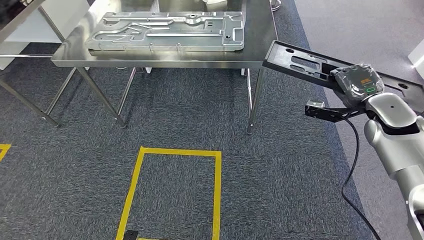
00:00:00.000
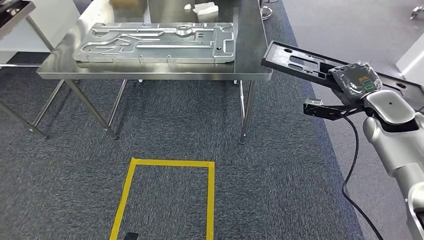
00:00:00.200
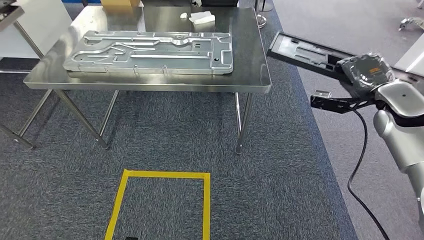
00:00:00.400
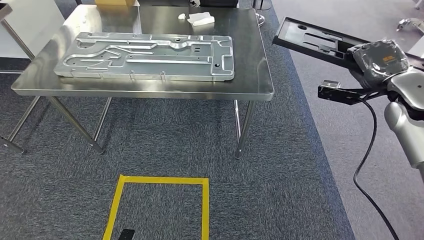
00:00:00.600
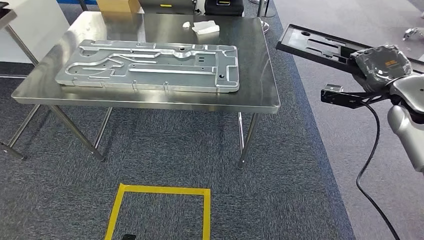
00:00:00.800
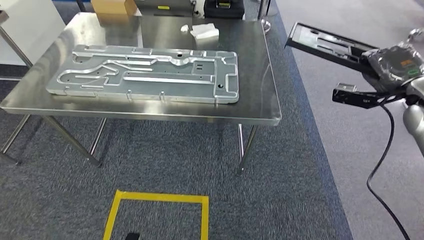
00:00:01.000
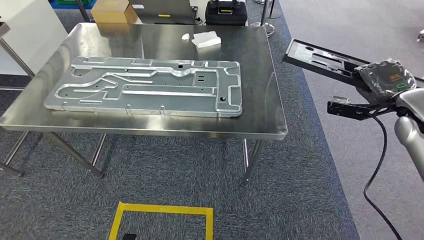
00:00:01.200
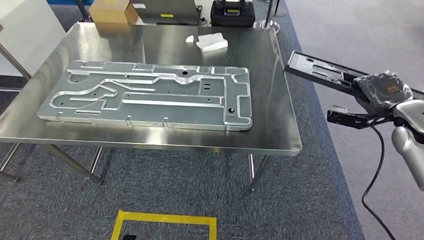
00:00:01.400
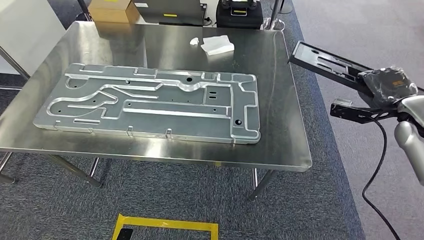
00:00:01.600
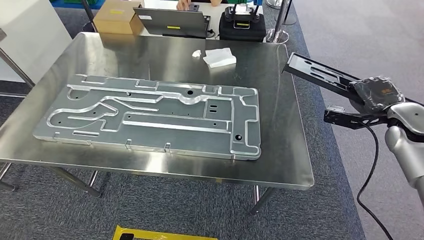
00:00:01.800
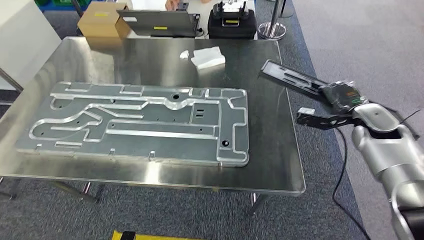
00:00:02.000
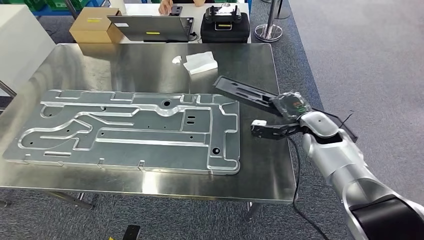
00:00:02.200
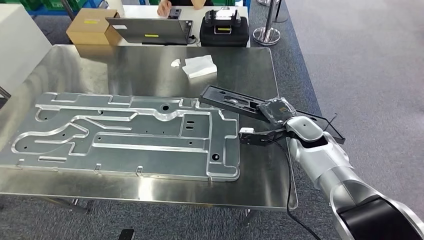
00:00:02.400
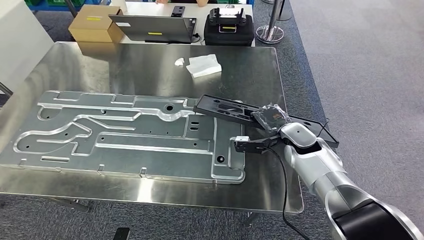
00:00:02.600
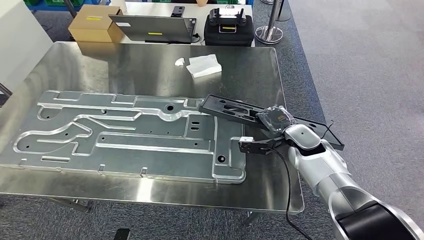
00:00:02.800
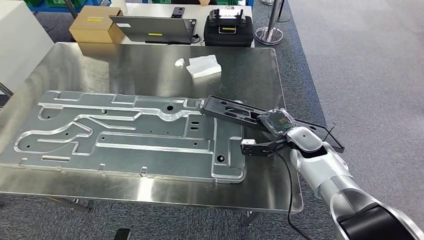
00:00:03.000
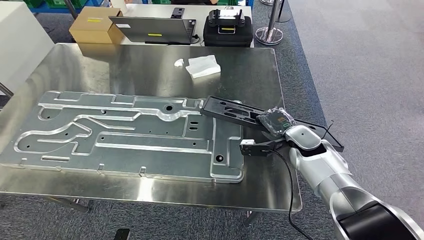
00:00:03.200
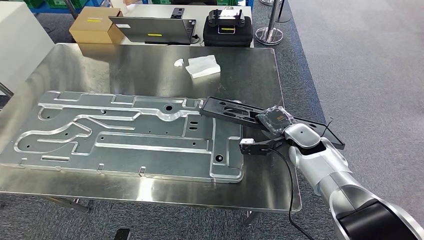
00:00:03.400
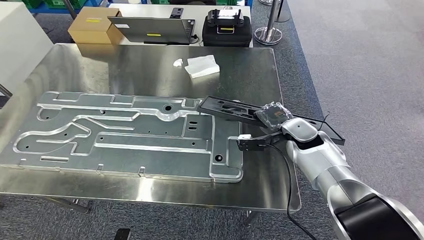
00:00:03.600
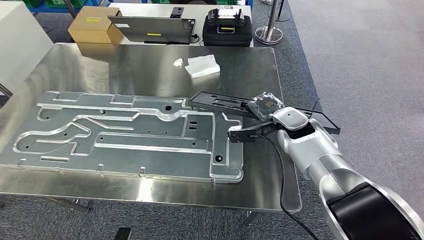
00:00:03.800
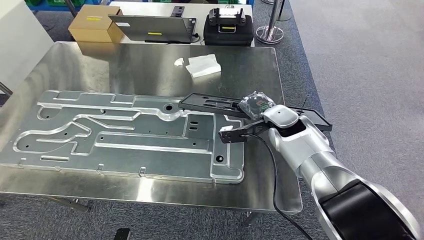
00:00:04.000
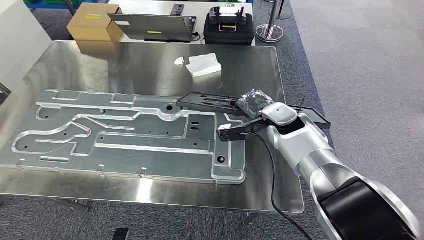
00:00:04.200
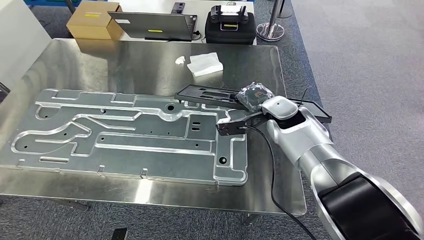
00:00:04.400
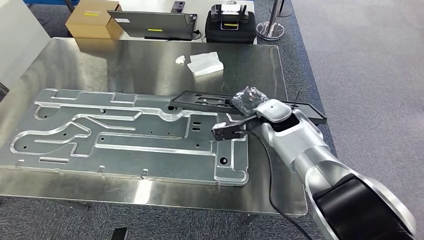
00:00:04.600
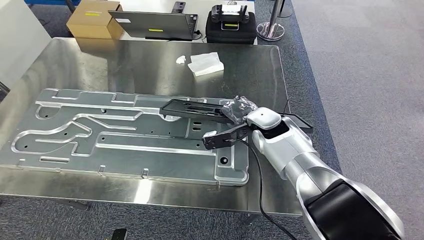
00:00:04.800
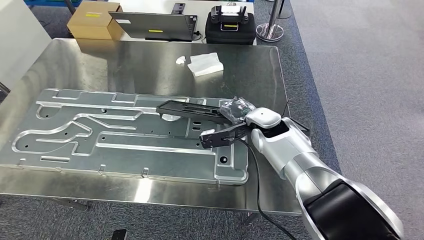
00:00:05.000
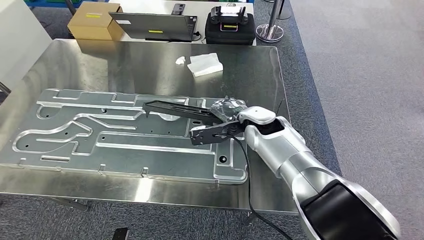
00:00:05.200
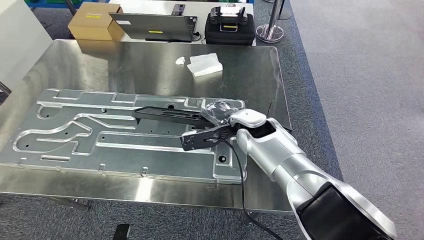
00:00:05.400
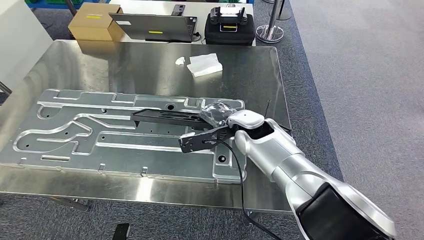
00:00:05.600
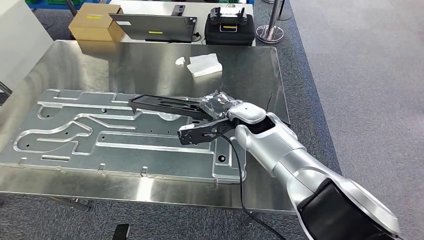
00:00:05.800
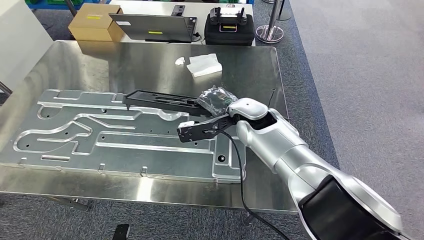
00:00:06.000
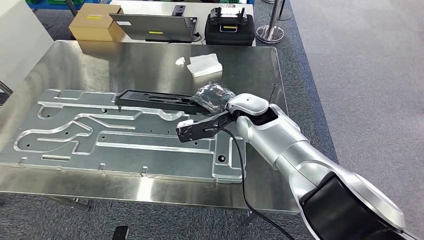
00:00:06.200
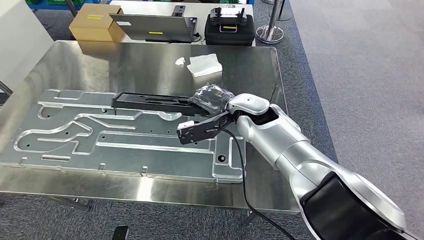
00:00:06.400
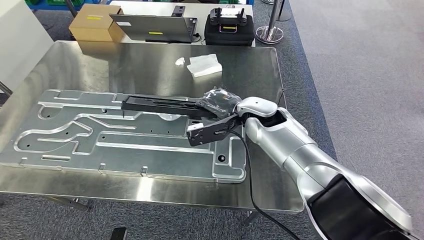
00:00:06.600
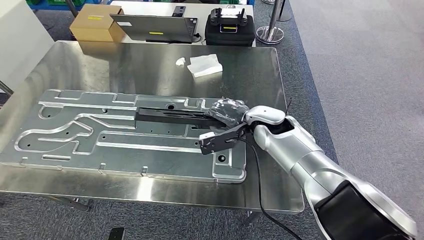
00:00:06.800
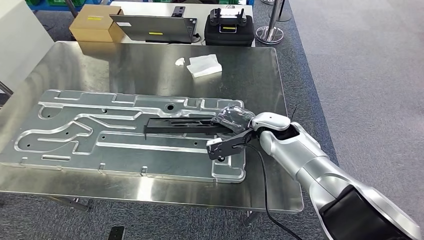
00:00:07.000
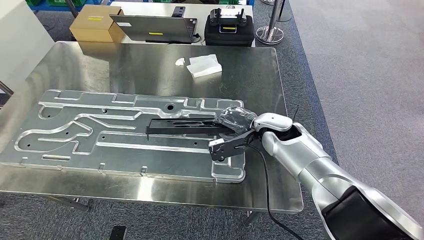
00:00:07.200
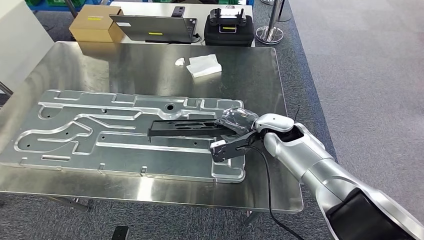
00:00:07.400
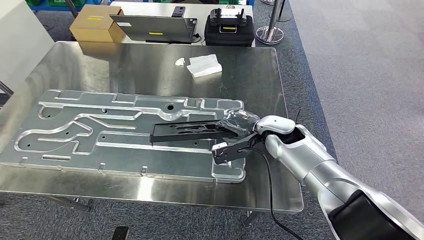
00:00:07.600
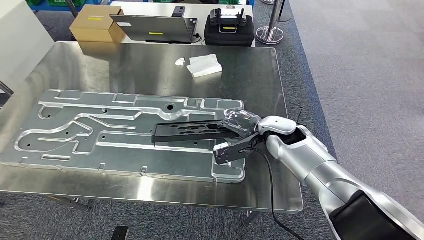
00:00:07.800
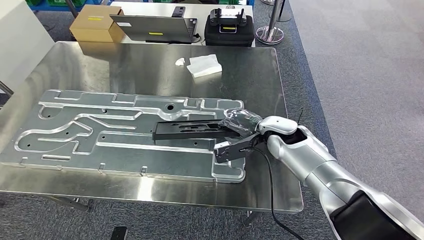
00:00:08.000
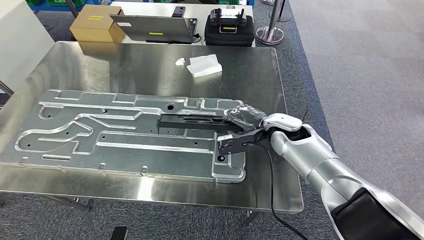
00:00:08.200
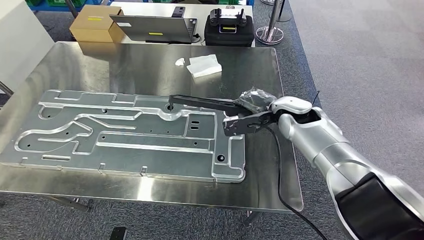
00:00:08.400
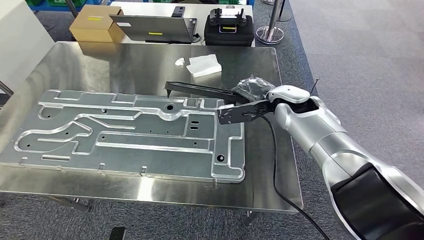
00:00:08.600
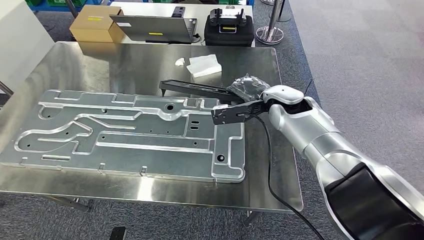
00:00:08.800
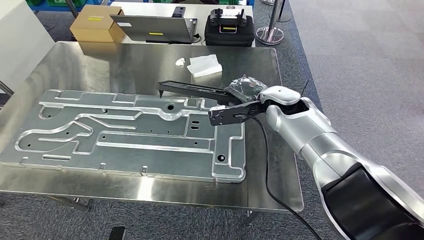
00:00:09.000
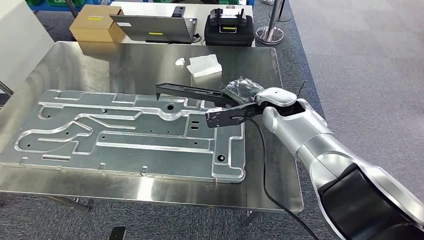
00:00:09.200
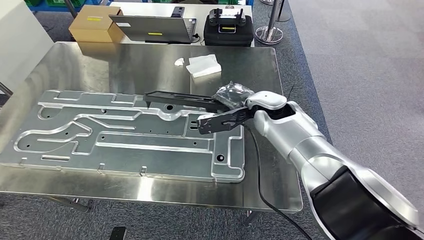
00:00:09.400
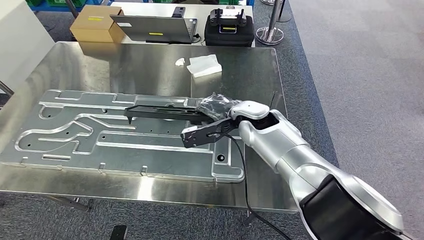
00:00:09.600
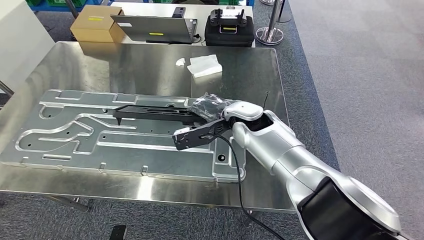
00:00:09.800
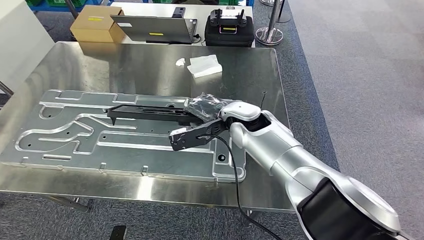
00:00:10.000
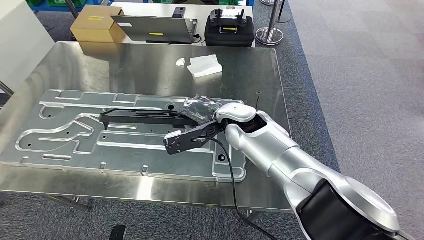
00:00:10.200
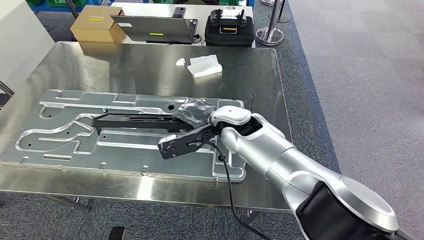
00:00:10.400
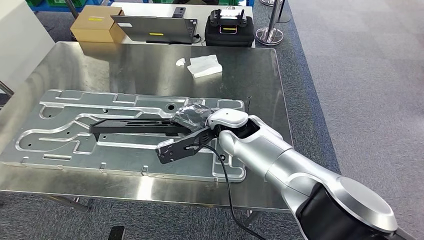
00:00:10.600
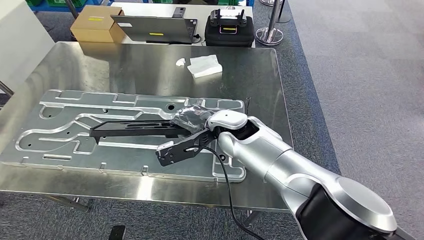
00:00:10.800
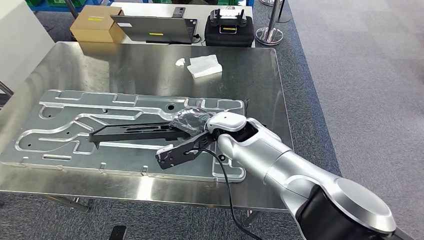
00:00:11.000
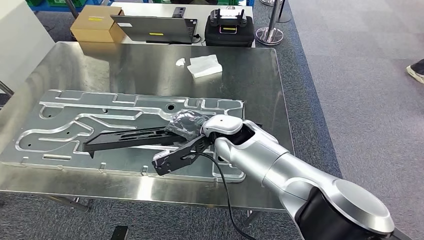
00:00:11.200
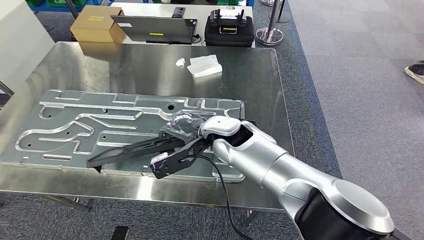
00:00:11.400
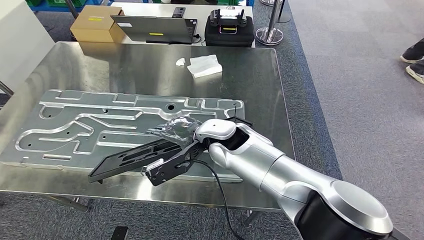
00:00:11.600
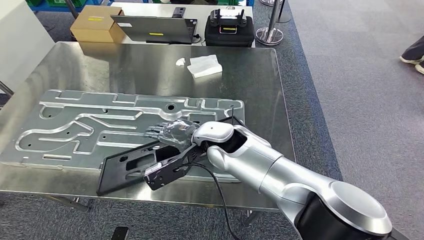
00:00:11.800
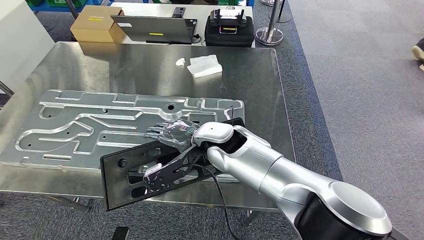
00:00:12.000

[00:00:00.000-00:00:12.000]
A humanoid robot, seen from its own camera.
00:00:06.000 to 00:00:07.600: The right hand moves to the right and downward, about 10 cm.
00:00:07.600 to 00:00:09.000: The right hand heads upward, covering some 5 cm.
00:00:10.400 to 00:00:12.000: The right hand moves some 5 cm.

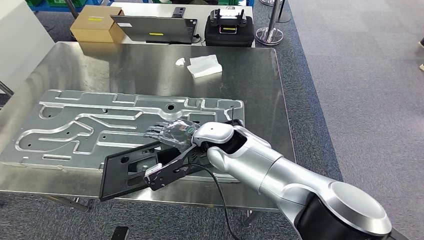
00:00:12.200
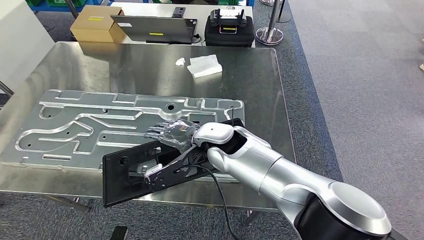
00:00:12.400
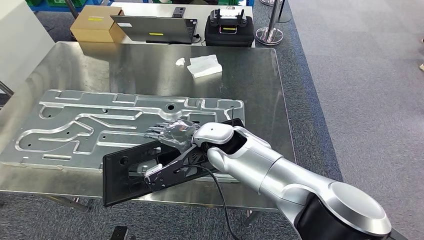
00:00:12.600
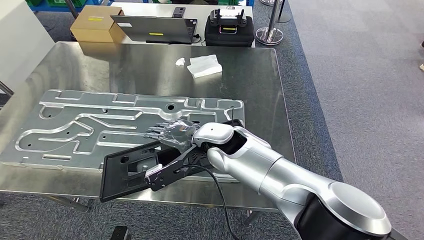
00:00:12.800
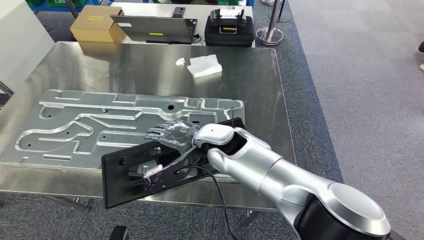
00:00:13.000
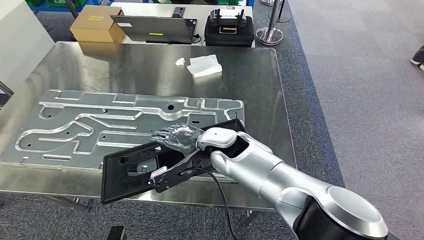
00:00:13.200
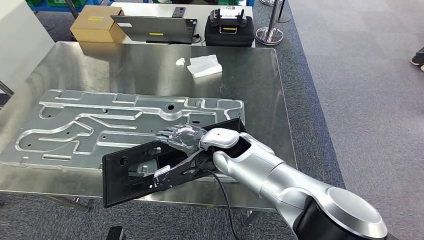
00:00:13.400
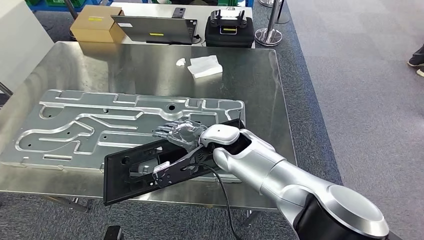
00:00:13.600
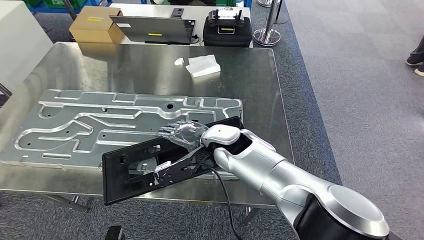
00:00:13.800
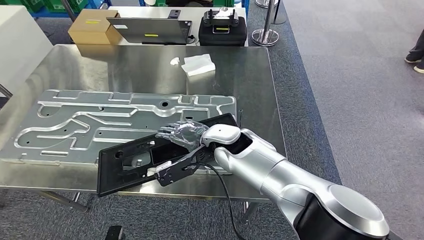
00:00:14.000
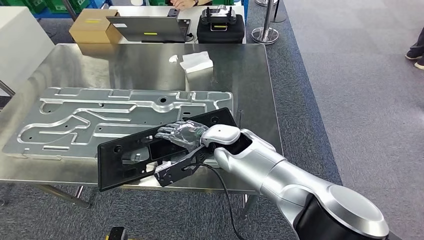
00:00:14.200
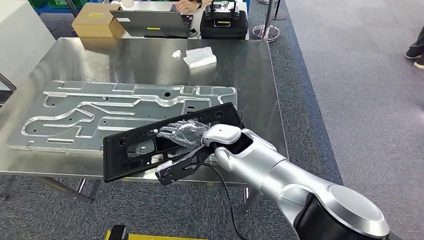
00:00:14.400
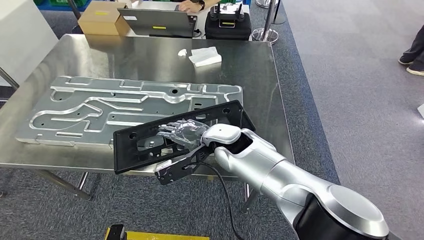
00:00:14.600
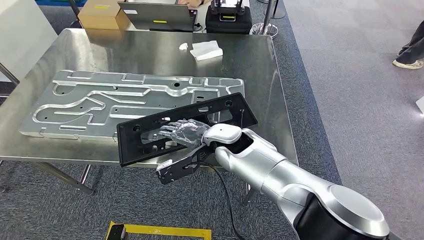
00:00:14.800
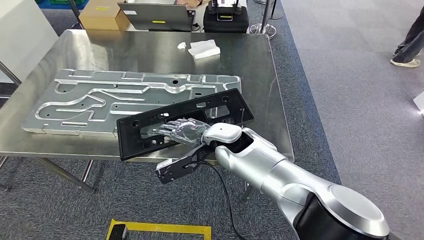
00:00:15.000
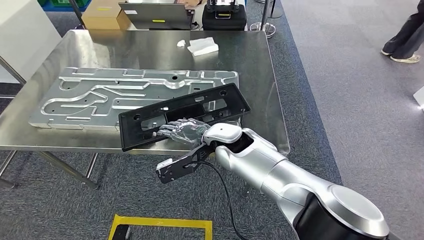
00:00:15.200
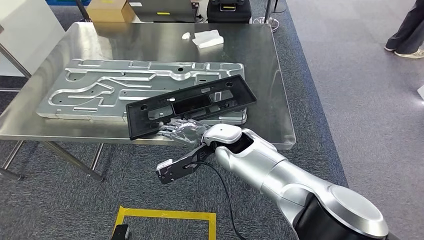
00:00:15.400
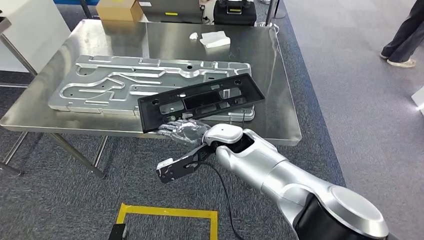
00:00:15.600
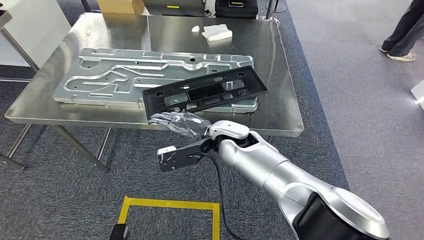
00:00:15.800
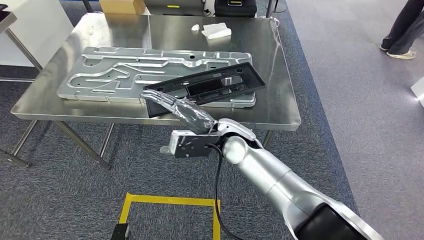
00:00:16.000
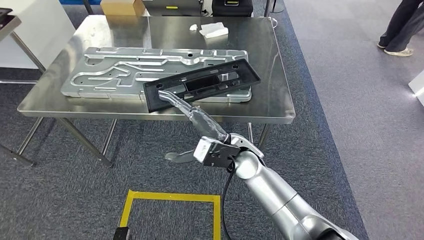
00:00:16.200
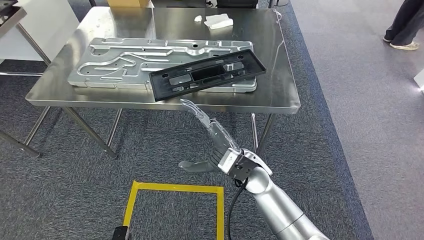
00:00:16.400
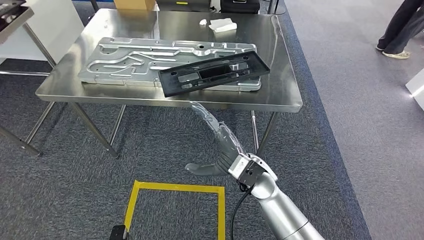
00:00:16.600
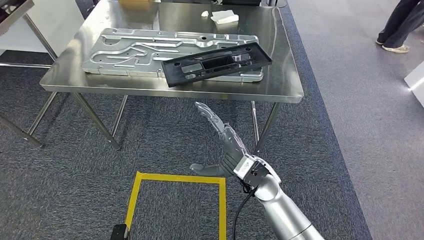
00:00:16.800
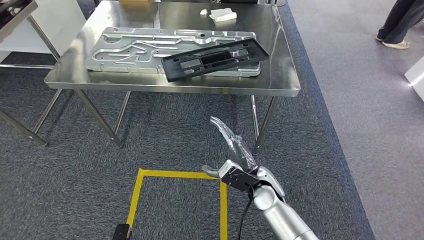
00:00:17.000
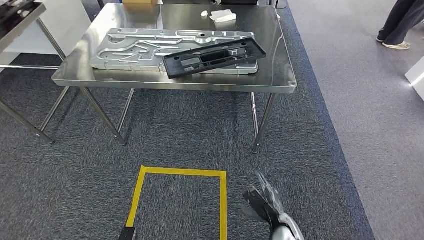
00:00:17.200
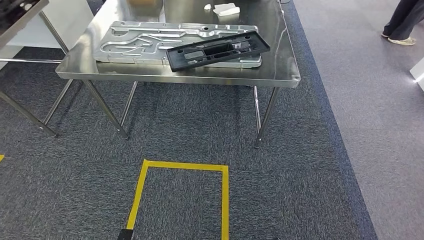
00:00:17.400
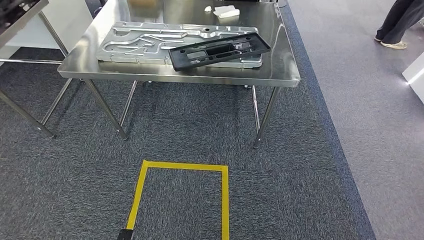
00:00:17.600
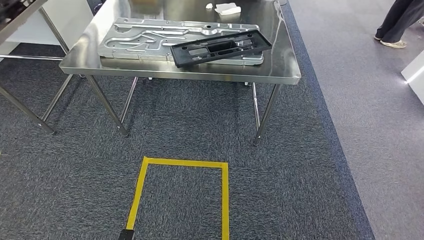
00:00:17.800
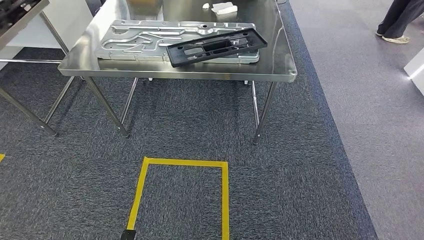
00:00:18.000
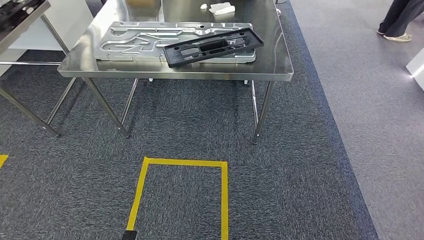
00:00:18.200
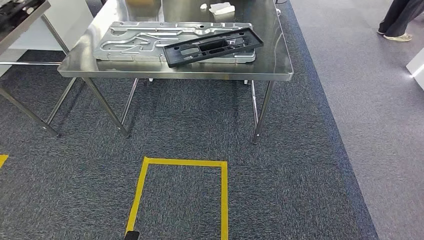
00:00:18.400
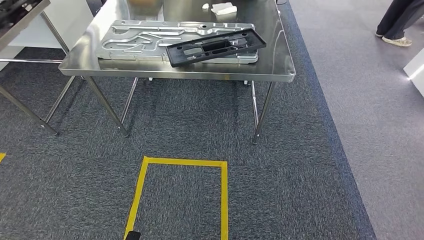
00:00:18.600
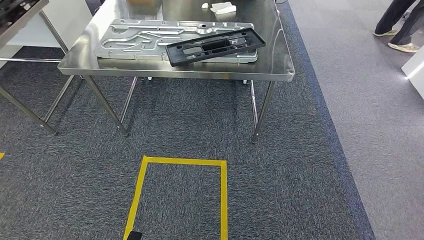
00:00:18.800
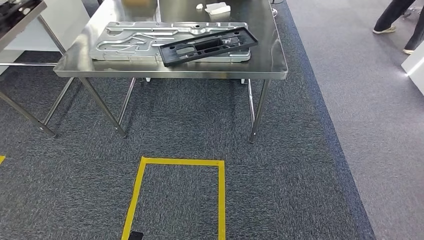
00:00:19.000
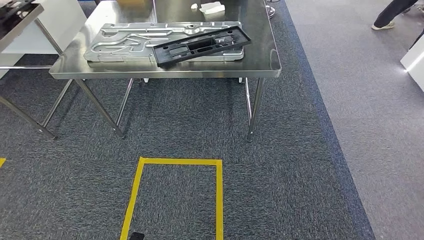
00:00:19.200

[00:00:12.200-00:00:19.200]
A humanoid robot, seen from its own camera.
Step, 00:00:12.200 to 00:00:14.400: Insert the large material into the corresponding slot on the workbench.
00:00:12.200 to 00:00:13.600: The hands stay close to where they were, moving slightly.
00:00:17.800 to 00:00:19.200: The hands move only a little.
